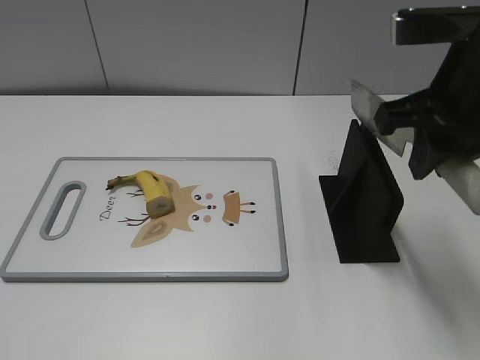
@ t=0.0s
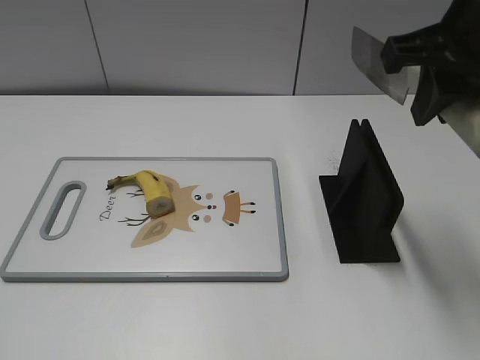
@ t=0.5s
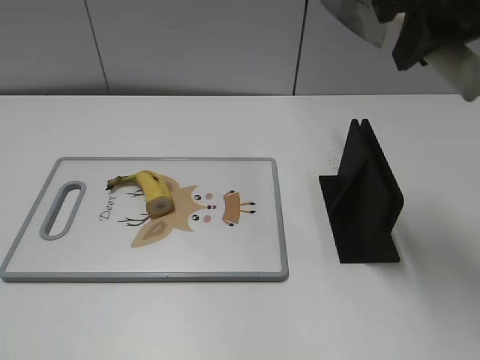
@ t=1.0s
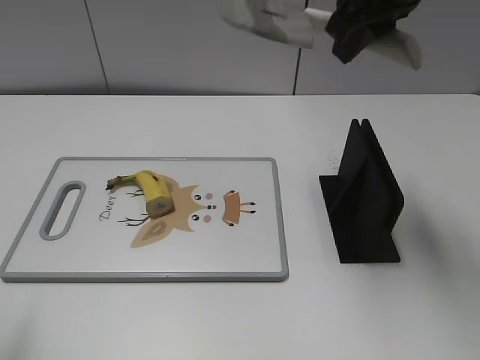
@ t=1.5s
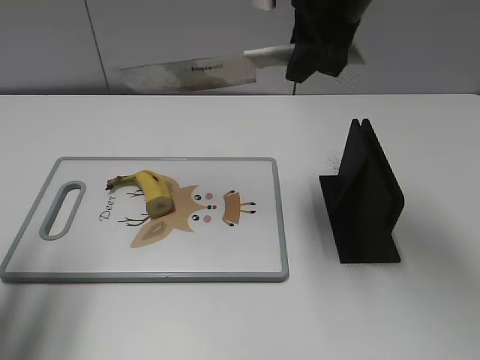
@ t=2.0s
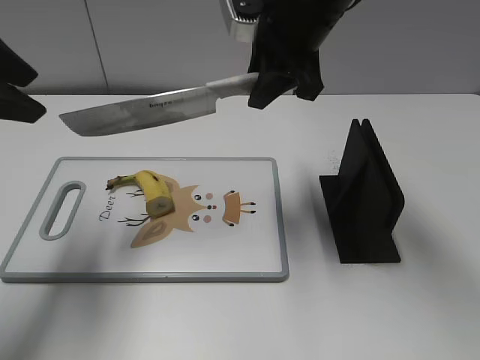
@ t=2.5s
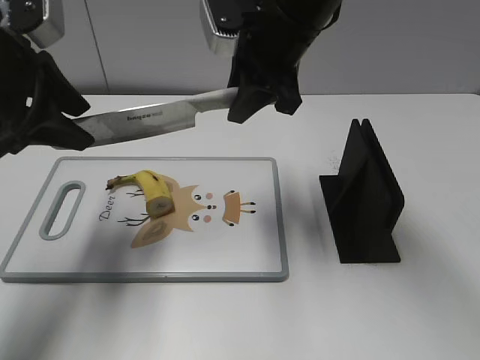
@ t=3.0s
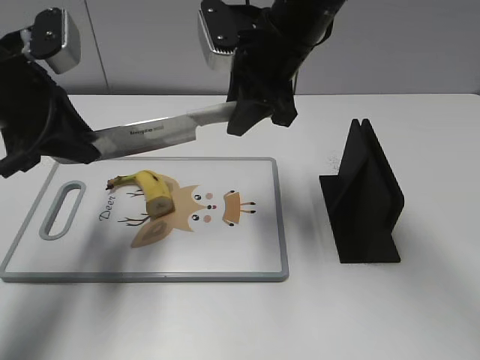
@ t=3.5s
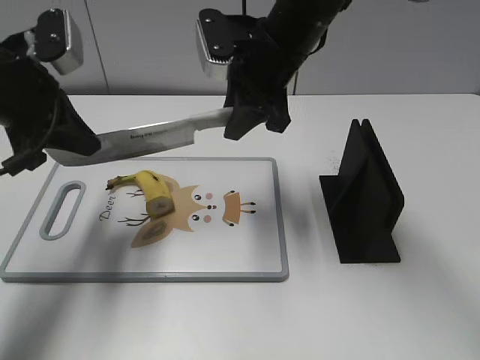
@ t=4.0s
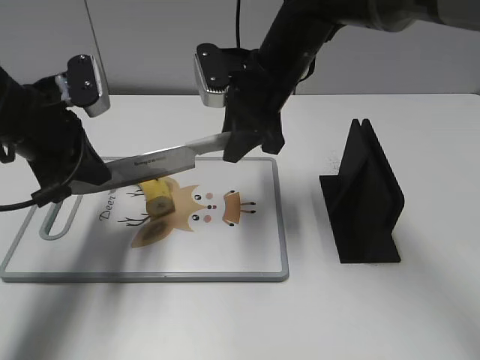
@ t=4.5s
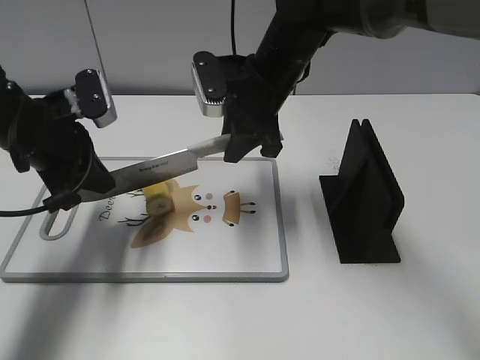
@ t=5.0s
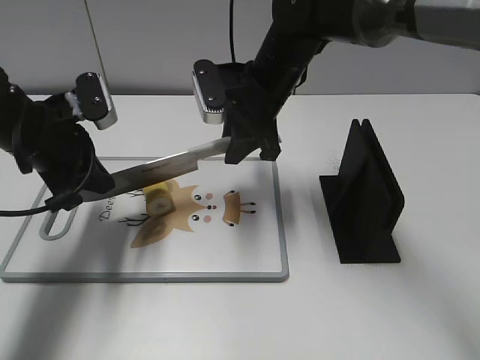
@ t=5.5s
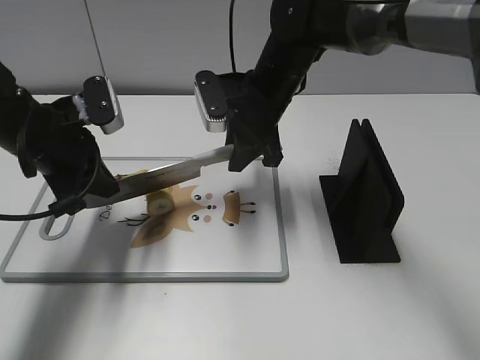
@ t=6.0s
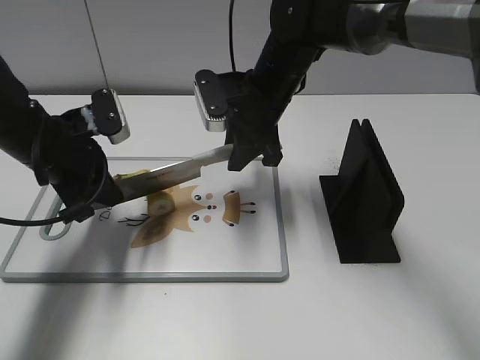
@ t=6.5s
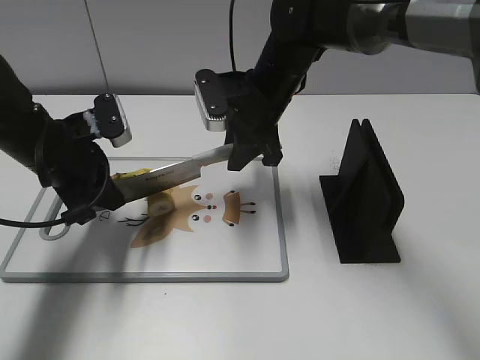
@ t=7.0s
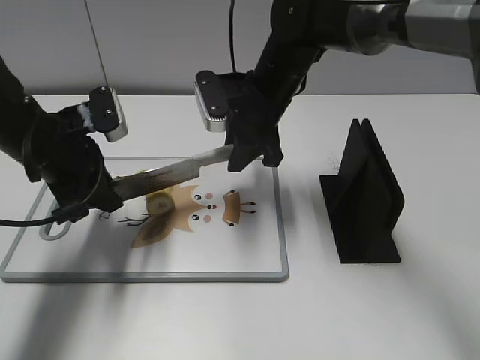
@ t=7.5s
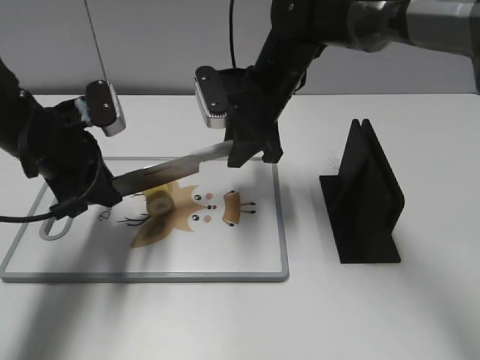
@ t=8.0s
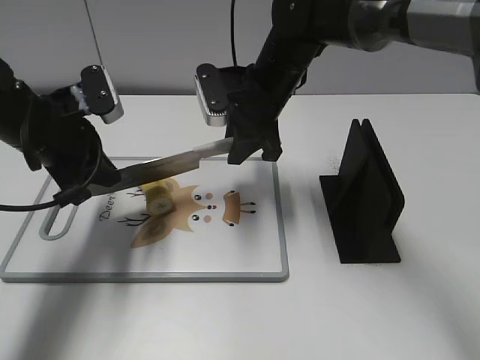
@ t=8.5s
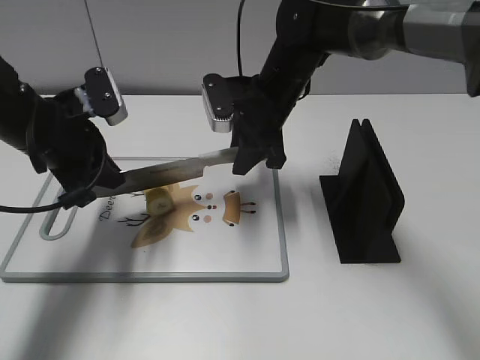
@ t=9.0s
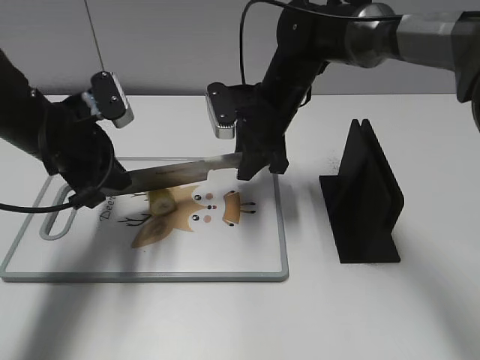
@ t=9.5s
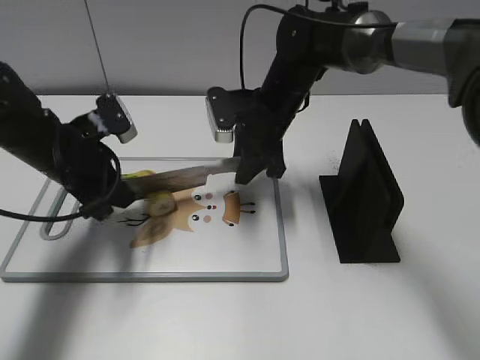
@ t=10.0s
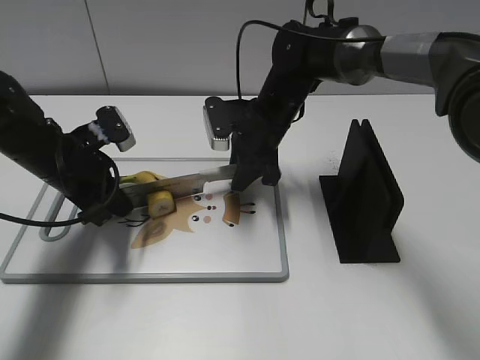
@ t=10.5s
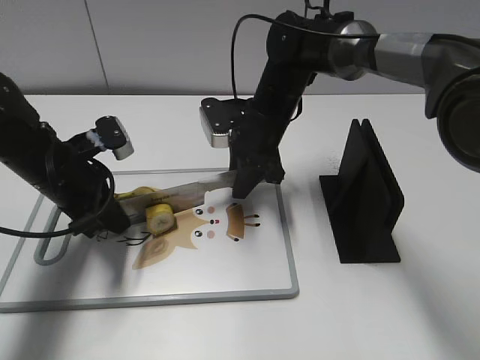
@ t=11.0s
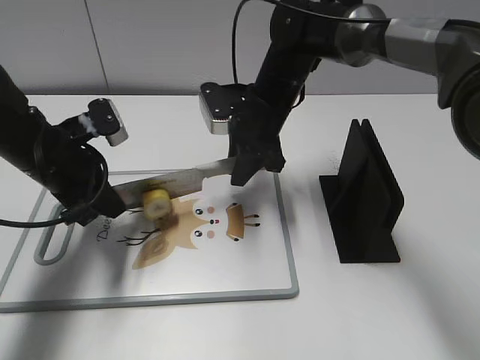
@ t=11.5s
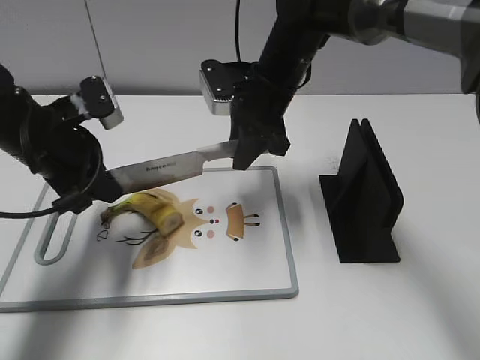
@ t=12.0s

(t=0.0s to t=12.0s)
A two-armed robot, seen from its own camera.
Task of the whole recording: cut banana.
Step, t=1.0s - t=6.0s: Lift the knife with your right hand.
Step, t=6.5s - t=10.0s: Cut the banana with your left hand.
t=0.0s - t=2.0s: The left gripper heads forward, covering roughly 20 cm, while the right gripper moves forward and to the left, roughly 15 cm.
t=2.0s - t=4.0s: The left gripper shifts some 15 cm forward, downward and to the right, and closes up. The right gripper goes approximately 10 cm downward and to the left.
t=4.0s - t=6.0s: Both grippers move downward, roughly 5 cm.
t=6.0s - t=8.0s: The left gripper opens its fingers.
t=8.0s - t=10.0s: The grippers move only a little.

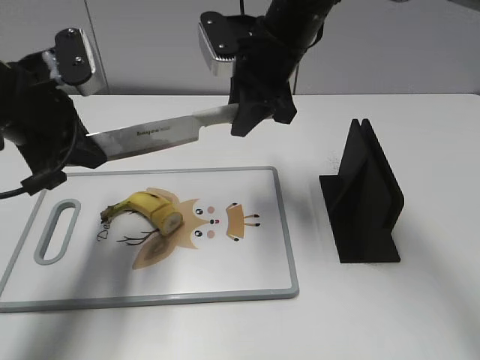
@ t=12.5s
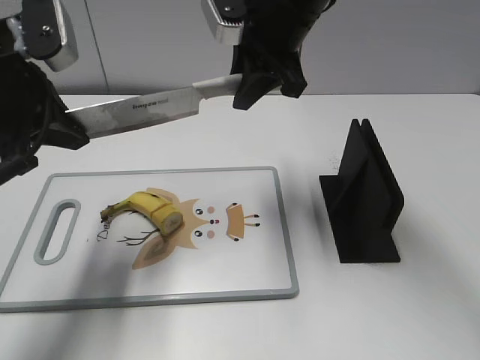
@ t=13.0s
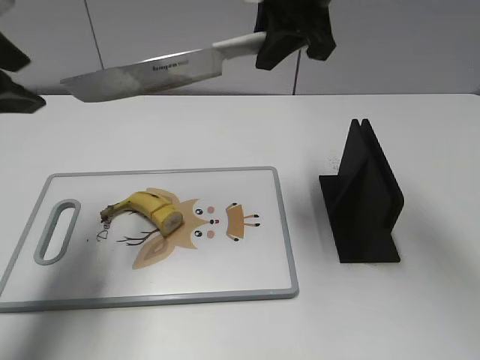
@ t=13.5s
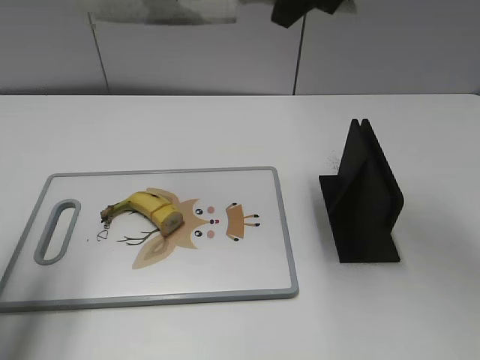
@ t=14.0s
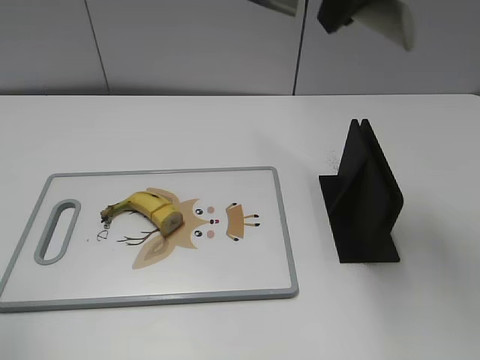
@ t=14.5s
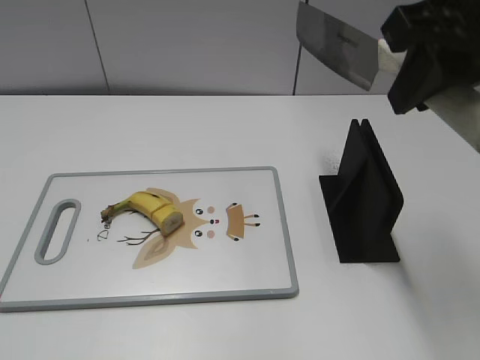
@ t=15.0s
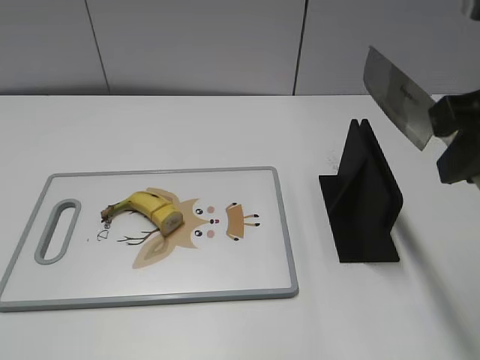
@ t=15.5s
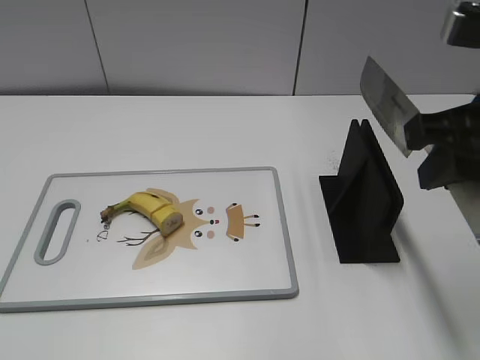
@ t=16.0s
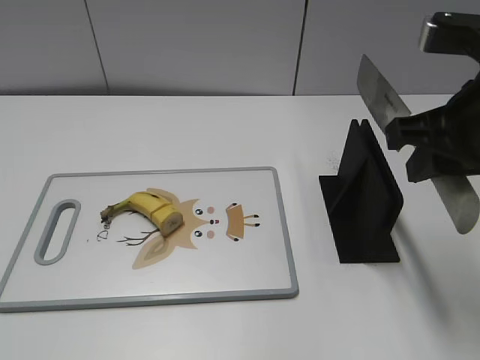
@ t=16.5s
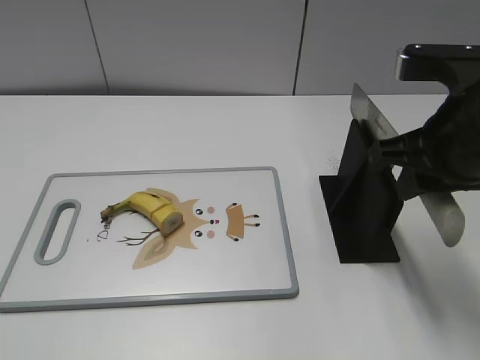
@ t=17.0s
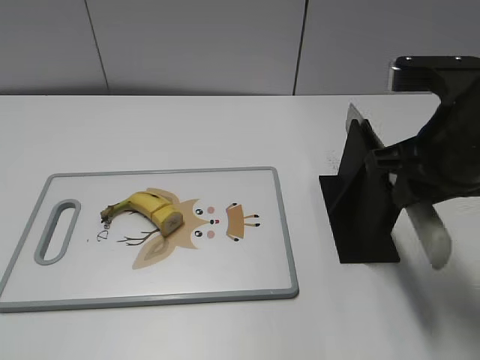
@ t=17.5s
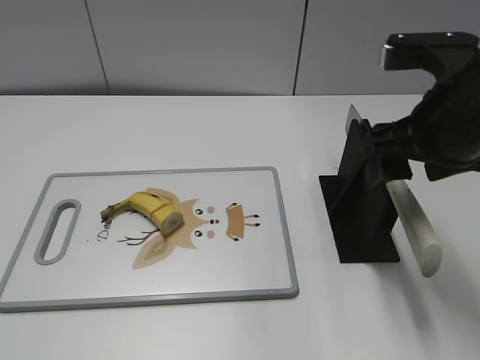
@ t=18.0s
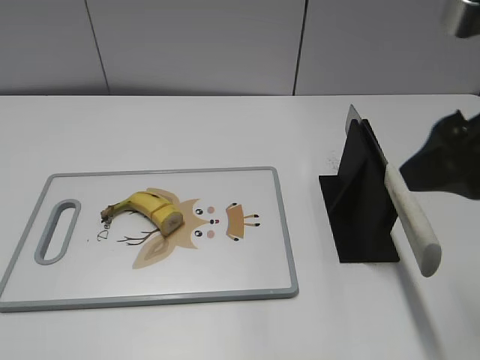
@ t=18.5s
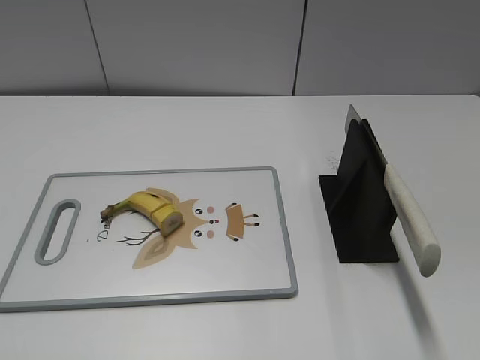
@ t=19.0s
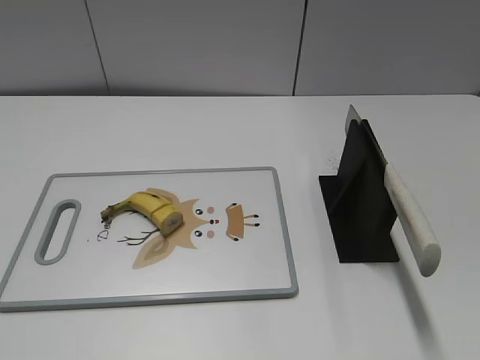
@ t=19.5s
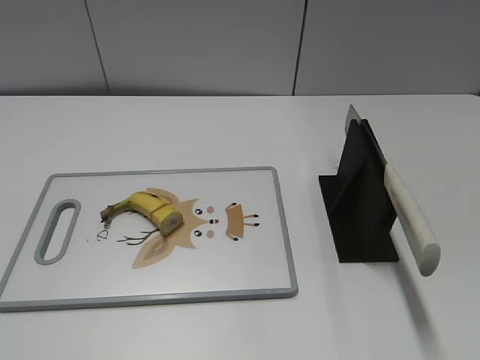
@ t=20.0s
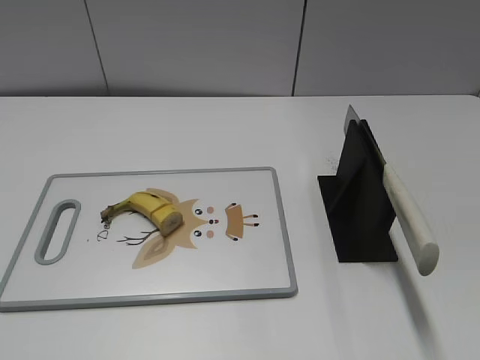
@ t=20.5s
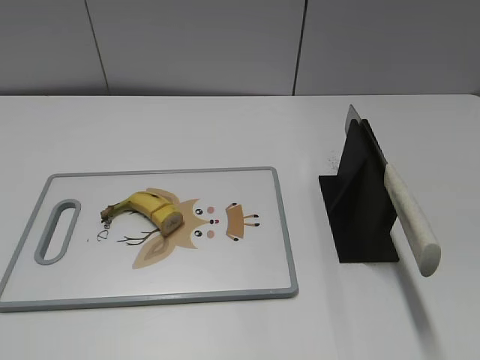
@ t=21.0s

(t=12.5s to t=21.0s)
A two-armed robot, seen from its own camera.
Task of the whole recording: cut banana.
Step, t=12.5s - t=15.0s: Cut the banana with your right hand.
Step, t=15.5s - t=18.0s: Lift the knife with your right hand.
t=12.5s - t=14.5s: The left gripper travels backward, upward and to the left by about 20 cm, and opens its fingers. Meanwhile the right gripper is displaced upward, backward and to the right by roughly 20 cm.
t=14.5s - t=16.5s: The right gripper is displaced downward, backward and to the right by approximately 15 cm.
t=16.5s - t=19.0s: The right gripper is displaced backward and to the right by approximately 15 cm, and opens.
